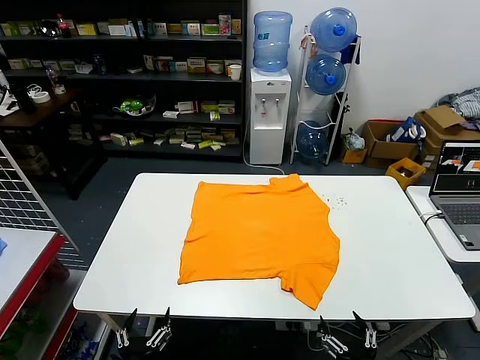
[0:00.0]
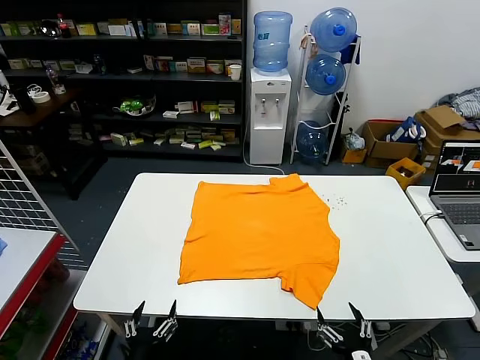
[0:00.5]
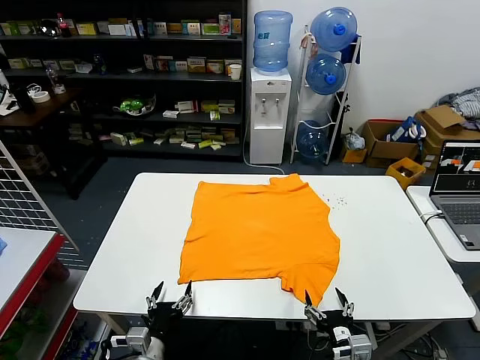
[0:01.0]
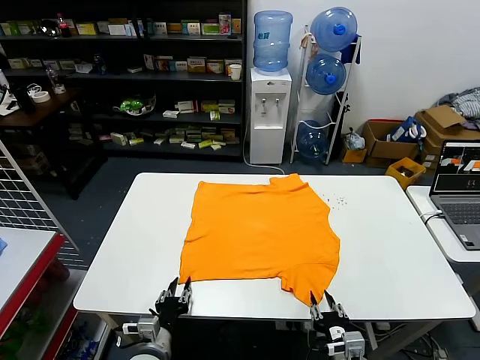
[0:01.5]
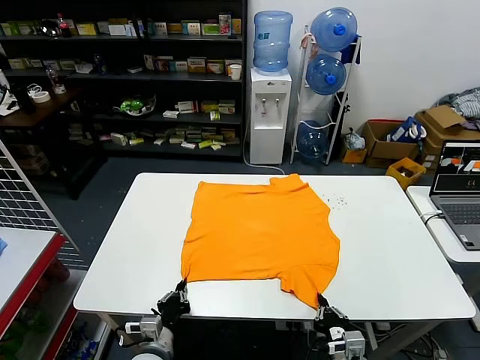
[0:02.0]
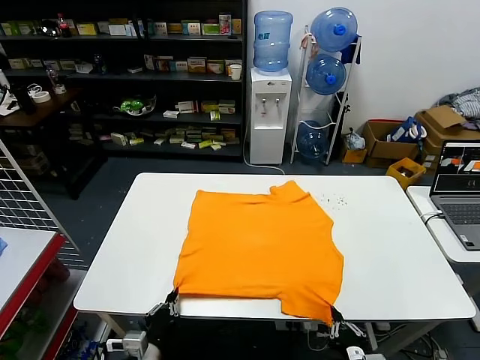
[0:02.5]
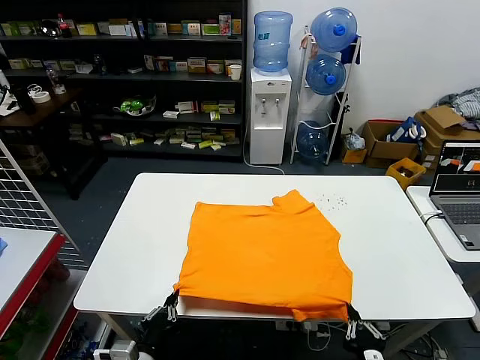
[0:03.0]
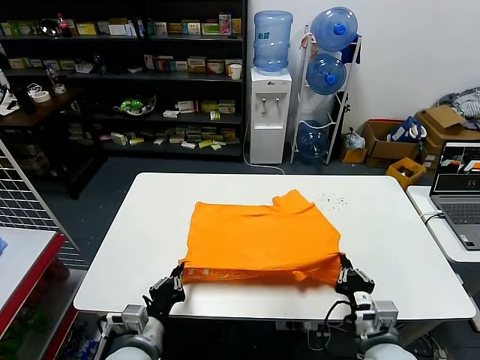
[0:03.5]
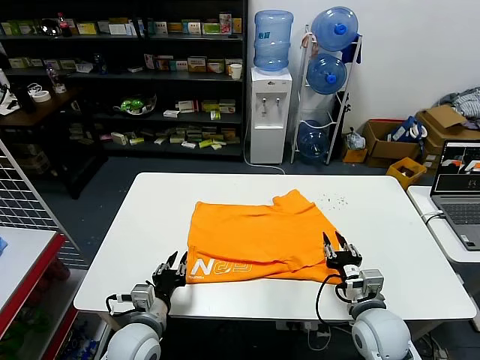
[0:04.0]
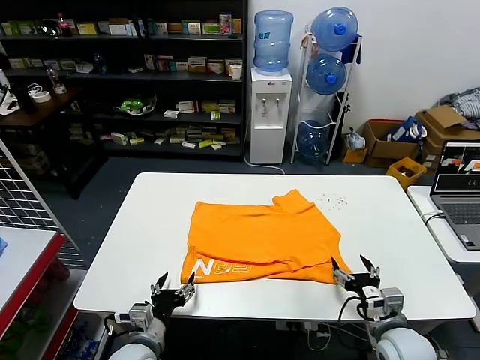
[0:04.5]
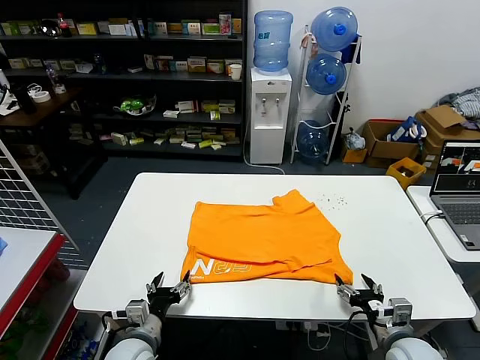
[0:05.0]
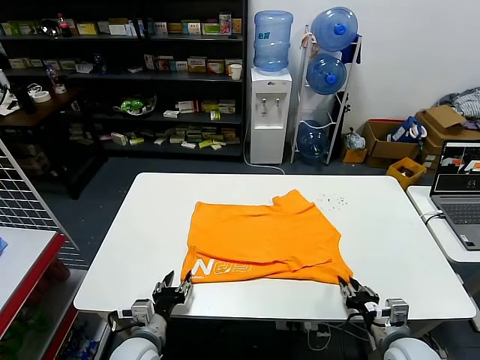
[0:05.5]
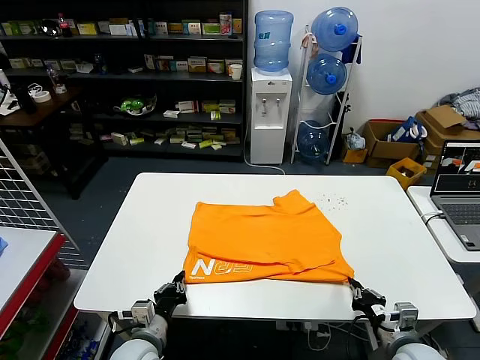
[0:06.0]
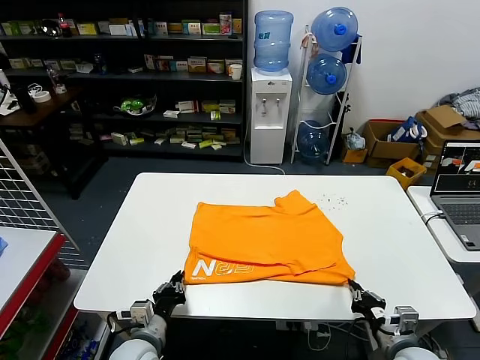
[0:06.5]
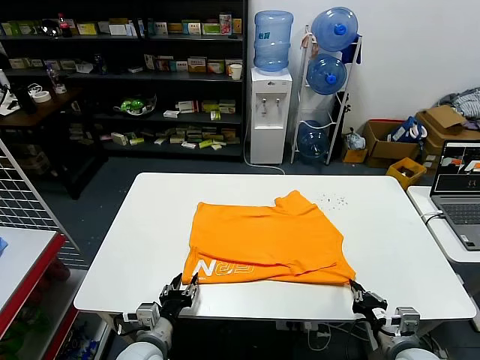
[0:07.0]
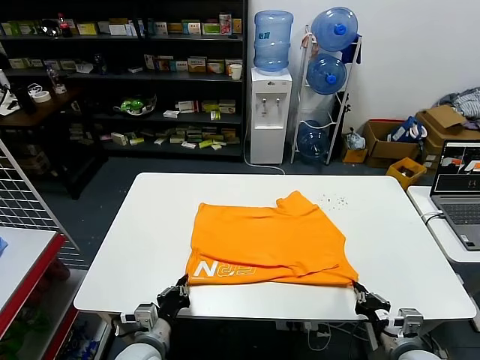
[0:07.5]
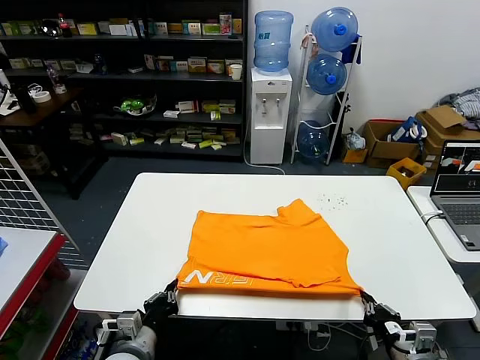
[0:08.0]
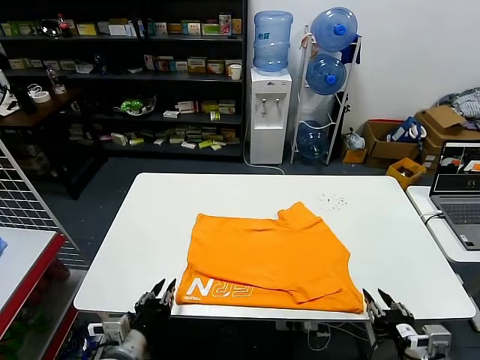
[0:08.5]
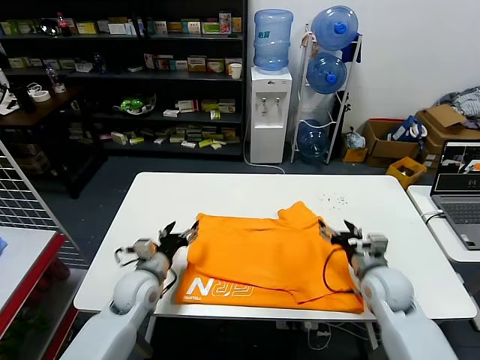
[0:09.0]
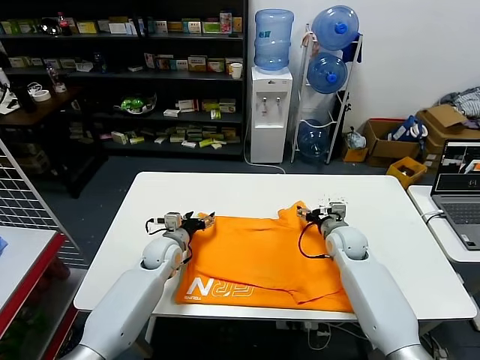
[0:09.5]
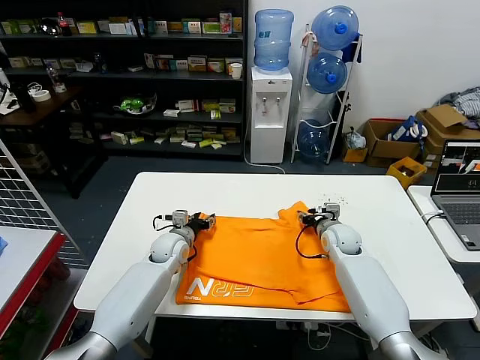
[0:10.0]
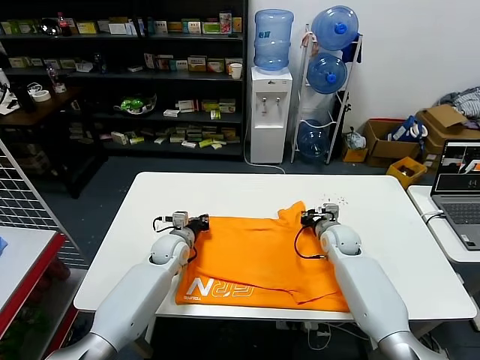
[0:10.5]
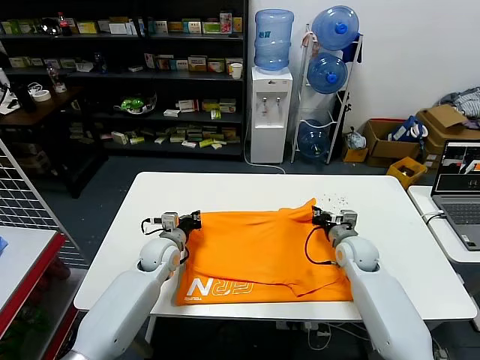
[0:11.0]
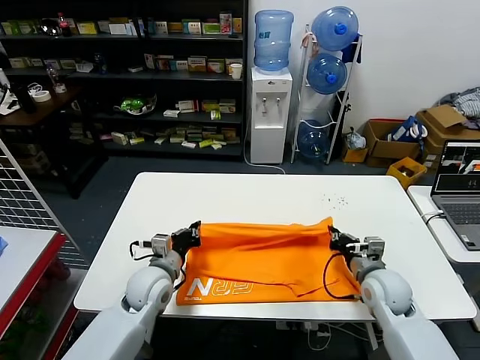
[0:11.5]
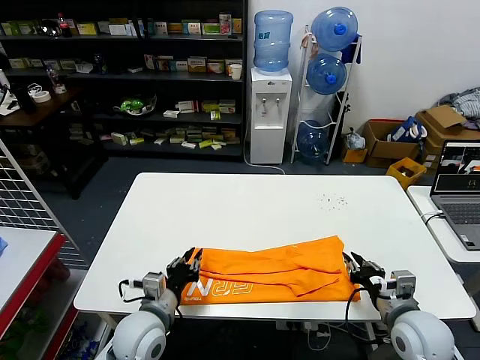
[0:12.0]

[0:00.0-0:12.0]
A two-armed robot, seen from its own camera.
Task of the whole recording: fold and organize the clothes.
Step, 0:00.0 to 0:02.0: use both grippers simultaneously to clamp the lower edge of the clothing fabric.
Step, 0:02.5 to 0:04.0: use both grippers to drag the lower edge of the fabric forward and fold it over the upper edge.
Step, 0:04.5 to 0:08.5: Drag the clothes downward with both gripper.
Step, 0:09.0 to 0:10.5: use both grippers simultaneously to clamp the upper edge of the clothing fabric.
0:02.0 to 0:04.0: The right gripper goes roughly 10 cm forward and upward, and opens up. Meanwhile the left gripper is displaced upward by roughly 5 cm, travels backward and back again, approximately 5 cm each way, and opens up.
0:04.0 to 0:06.0: The left gripper opens, then closes once more; the right gripper moves to the right and backward, about 10 cm, and closes.
0:06.0 to 0:08.0: The right gripper moves roughly 5 cm, while the left gripper opens and closes again.
0:08.0 to 0:10.0: The grippers both shift forward by approximately 30 cm. The right gripper opens up, while the left gripper opens its fingers.
0:10.0 to 0:12.0: The grippers both shift backward by roughly 25 cm. The left gripper closes.

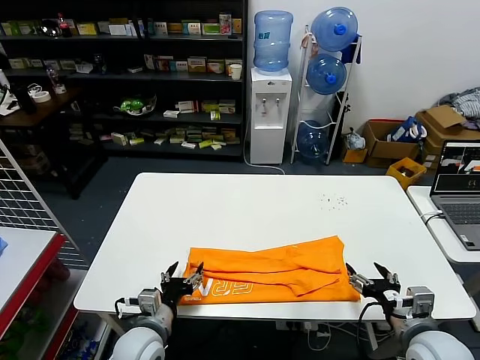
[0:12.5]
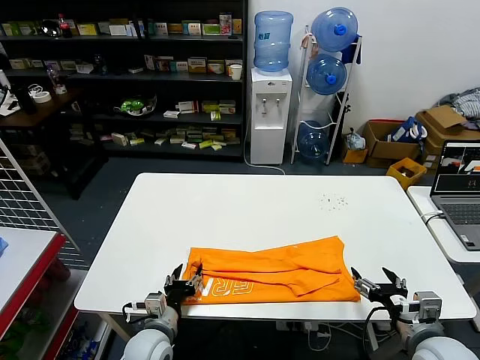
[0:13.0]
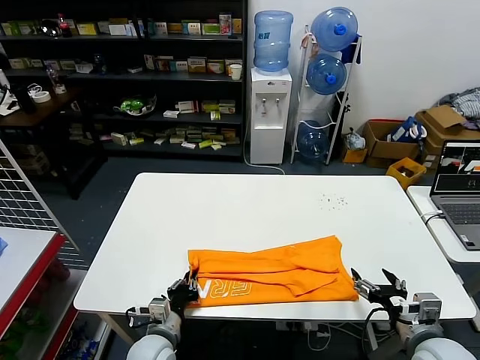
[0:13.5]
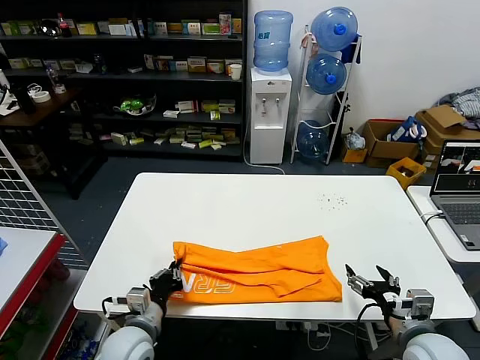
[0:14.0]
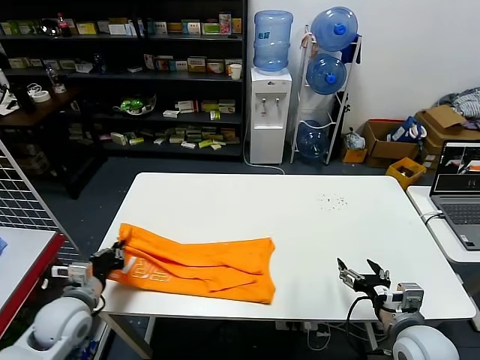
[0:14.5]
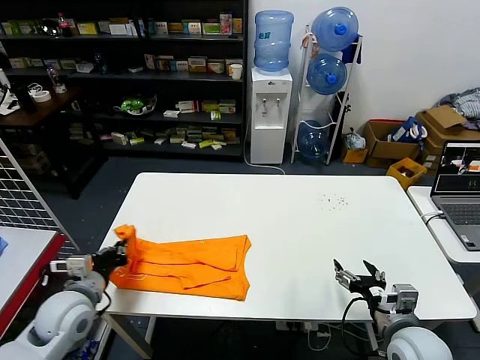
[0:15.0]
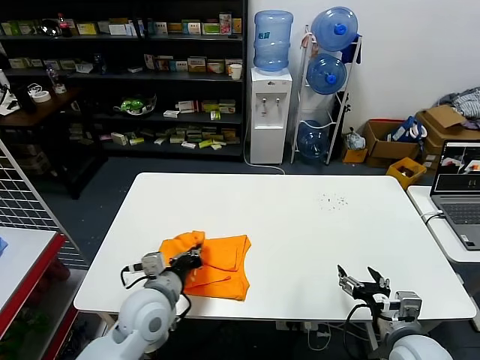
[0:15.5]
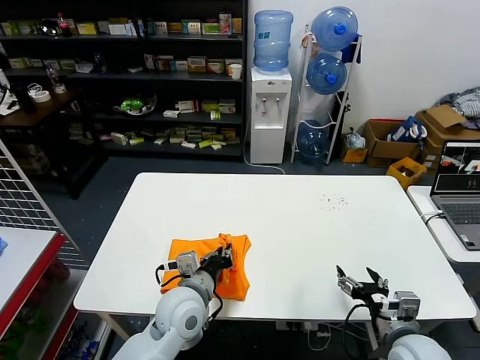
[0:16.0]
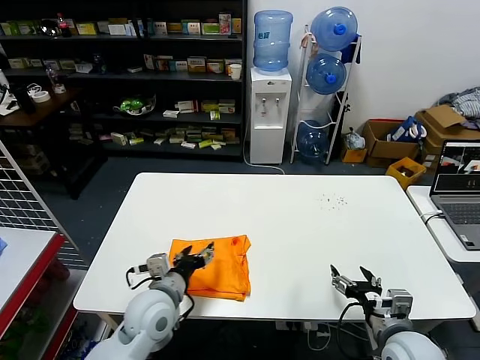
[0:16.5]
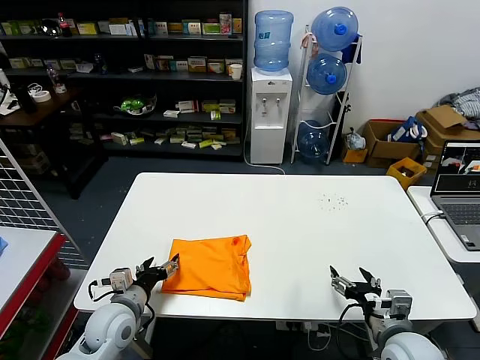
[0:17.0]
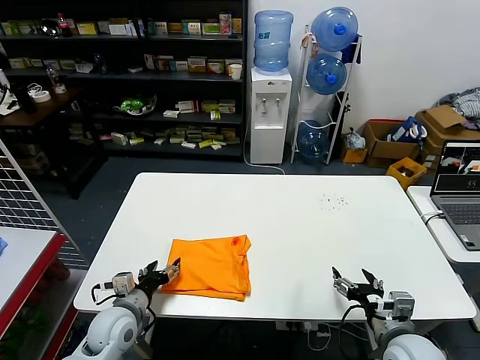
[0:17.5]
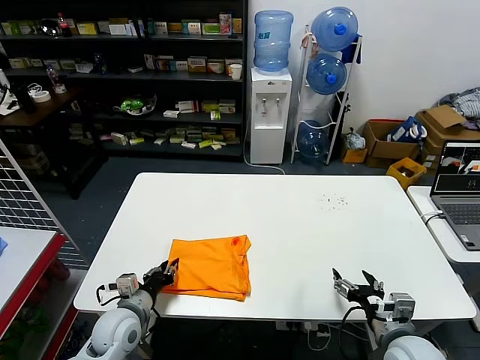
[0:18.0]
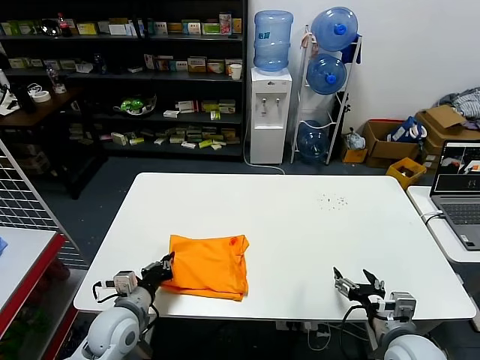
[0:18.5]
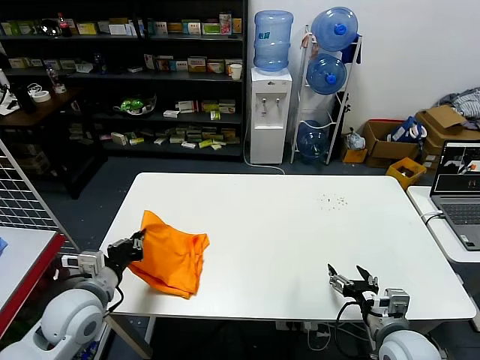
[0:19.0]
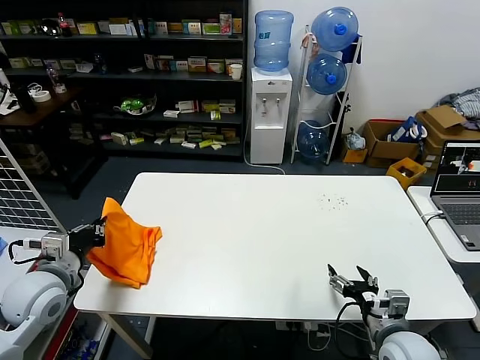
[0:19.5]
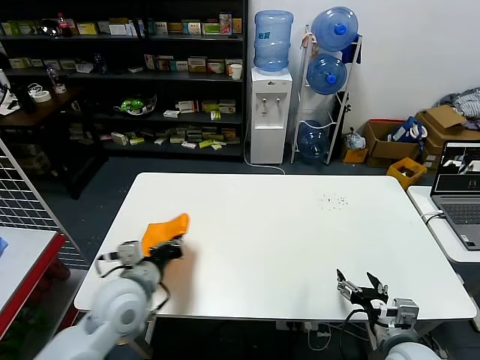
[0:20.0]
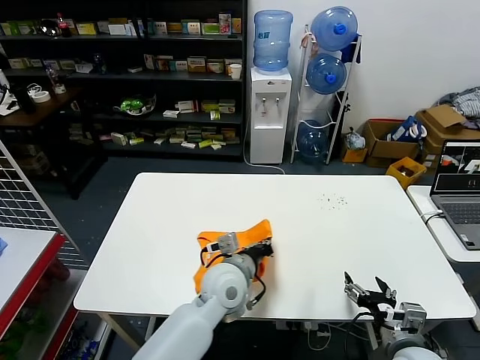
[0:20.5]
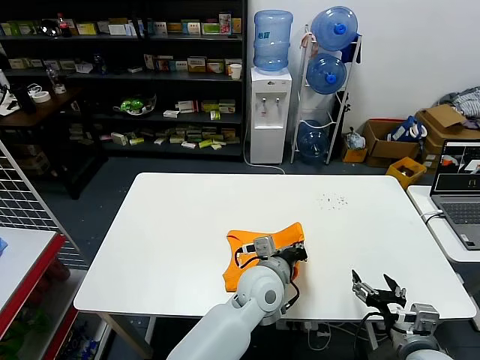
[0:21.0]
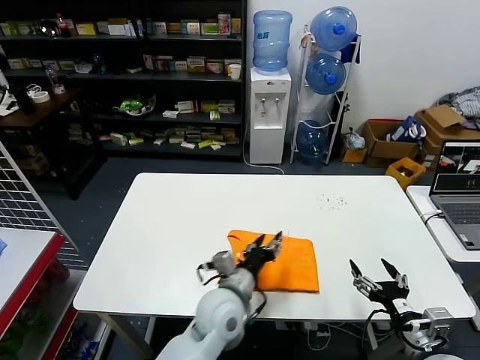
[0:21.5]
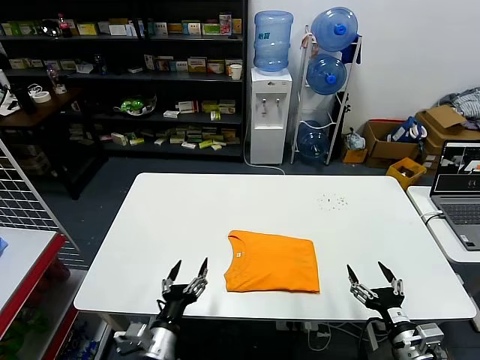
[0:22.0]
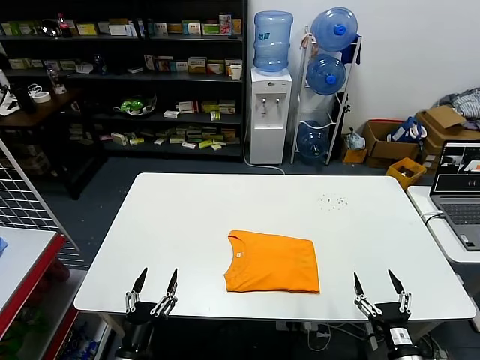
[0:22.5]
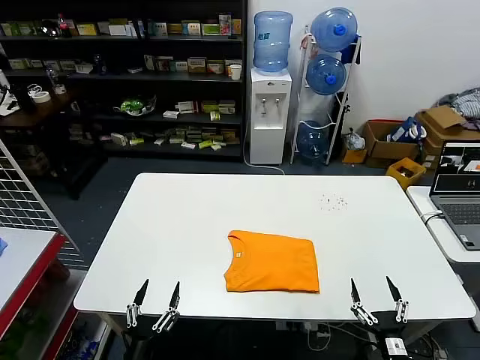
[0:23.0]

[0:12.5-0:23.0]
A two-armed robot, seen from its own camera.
Task of the whole recording: fold and organize the clothes.
Step, 0:12.5 to 0:13.5: use the left gripper to clamp the left edge of the fabric.
Step, 0:14.0 to 0:16.0: use the left gripper to drag the left edge of the fabric to the left and folds it over the right edge.
Step, 0:16.5 to 0:21.0: Flip the folded clothes over with left gripper.
0:12.5 to 0:14.5: The left gripper shifts some 15 cm to the left, and closes.
0:14.5 to 0:16.5: The left gripper is displaced to the right by approximately 20 cm, and opens.
0:16.5 to 0:19.0: The left gripper moves to the left, approximately 15 cm, and closes its fingers.
0:19.0 to 0:21.0: The left gripper goes some 35 cm to the right.
0:21.0 to 0:23.0: The left gripper heads to the left, backward and downward, covering about 40 cm, and opens its fingers. The right gripper is displaced downward and backward by approximately 10 cm.
